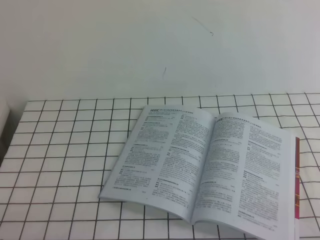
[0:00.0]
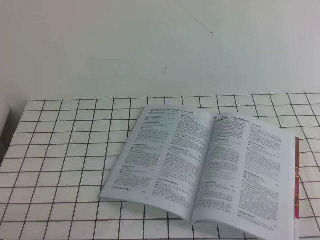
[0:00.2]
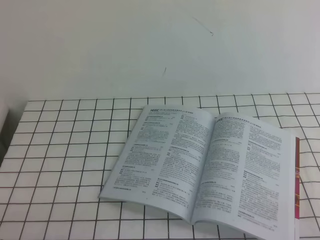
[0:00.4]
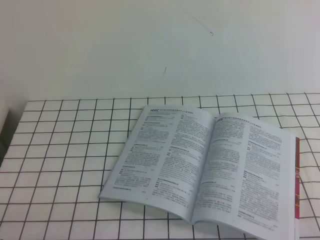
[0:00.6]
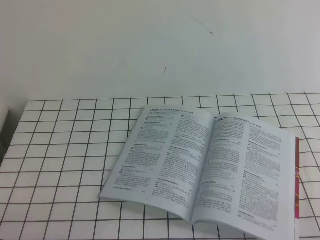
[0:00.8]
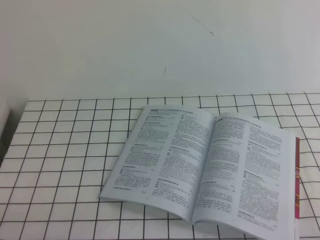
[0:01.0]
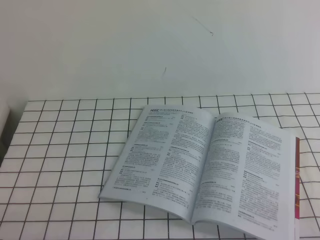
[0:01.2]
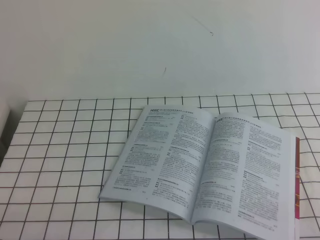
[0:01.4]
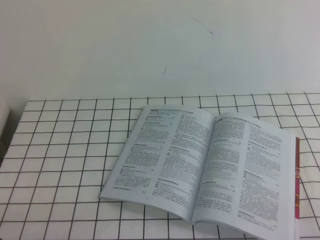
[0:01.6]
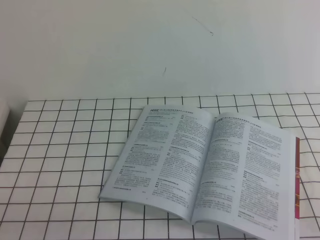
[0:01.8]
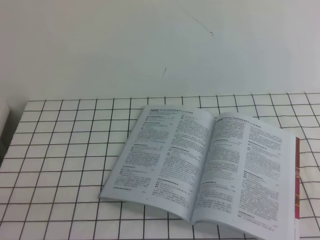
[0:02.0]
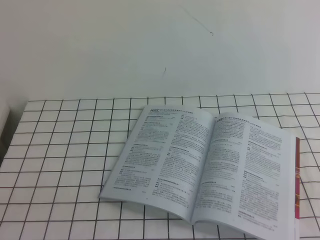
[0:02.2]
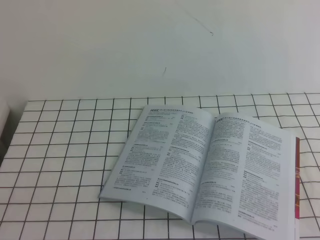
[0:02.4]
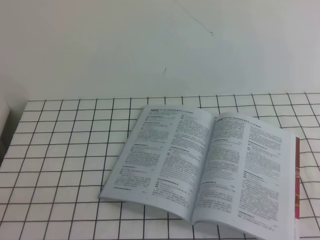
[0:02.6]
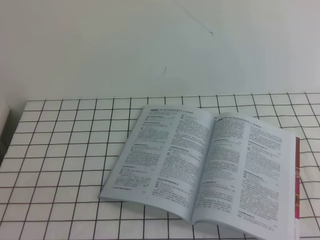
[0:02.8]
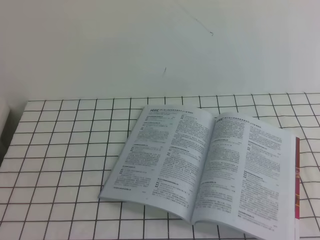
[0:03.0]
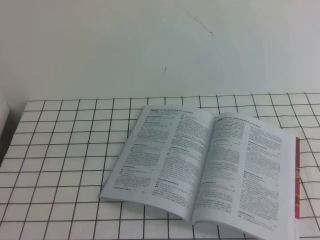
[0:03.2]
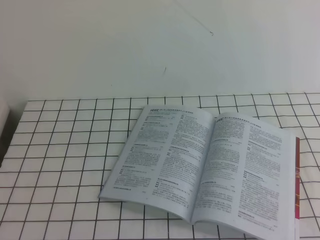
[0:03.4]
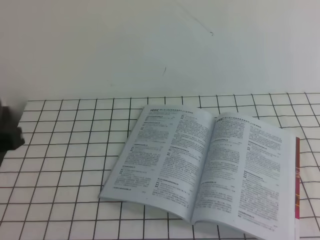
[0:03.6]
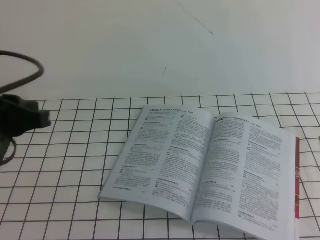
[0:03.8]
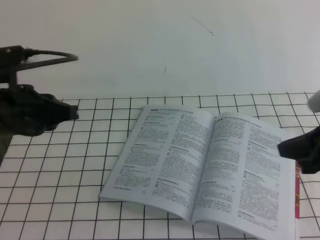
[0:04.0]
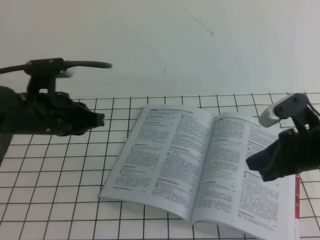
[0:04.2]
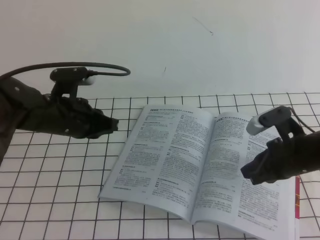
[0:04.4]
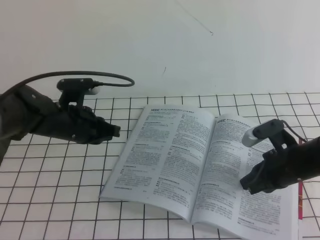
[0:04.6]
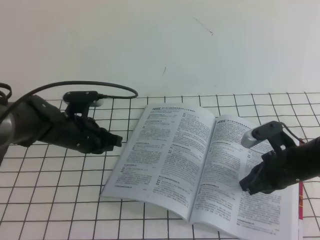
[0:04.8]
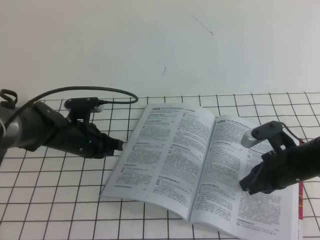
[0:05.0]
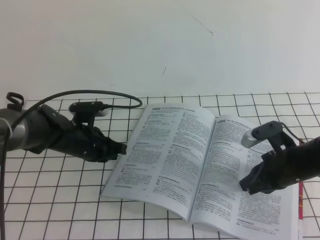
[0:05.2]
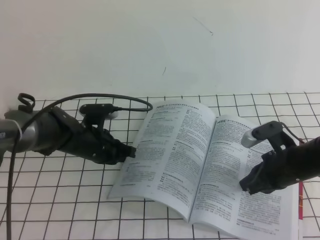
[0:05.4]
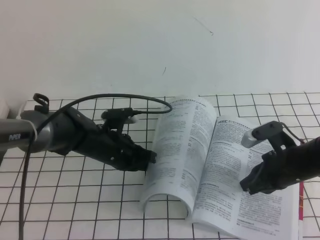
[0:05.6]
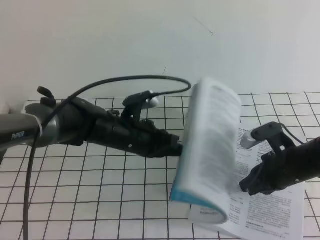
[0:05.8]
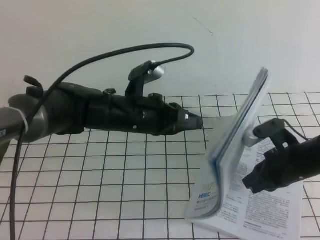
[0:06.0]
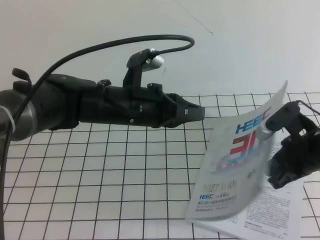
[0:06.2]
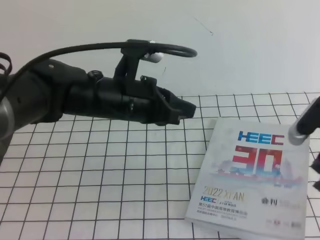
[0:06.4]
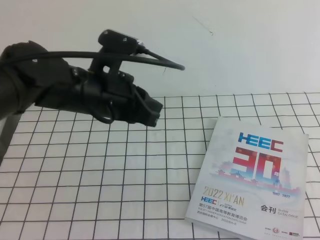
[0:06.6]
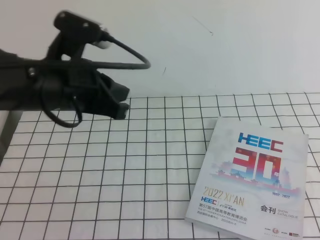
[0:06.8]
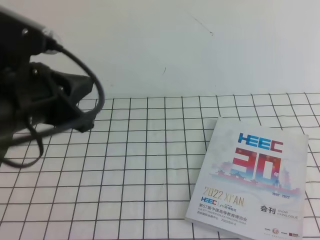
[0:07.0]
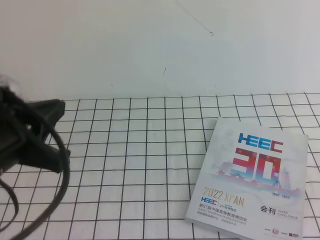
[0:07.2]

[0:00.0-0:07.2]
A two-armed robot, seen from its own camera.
Task of the whole recording: on the white tablecloth, hold the book with one hand and close it with the other.
Step, 0:00.0 to 0:03.8: Close the book.
0:00.0 to 0:01.4: The two grippers keep their place.
0:02.8 to 0:04.4: The right gripper is displaced forward, to the left and downward by about 30 cm. The left gripper travels forward by approximately 30 cm.
0:04.4 to 0:05.8: The right gripper changes place by approximately 5 cm. The left gripper shifts some 10 cm to the right and downward.
0:05.8 to 0:07.2: The left gripper is displaced upward, backward and to the left by about 25 cm. The right gripper moves backward, upward and to the right, some 35 cm.

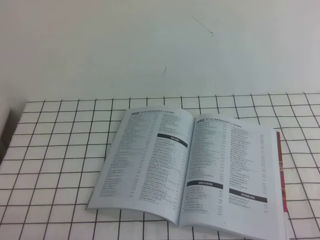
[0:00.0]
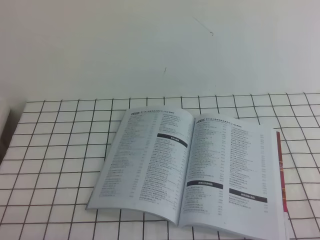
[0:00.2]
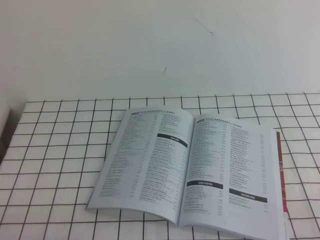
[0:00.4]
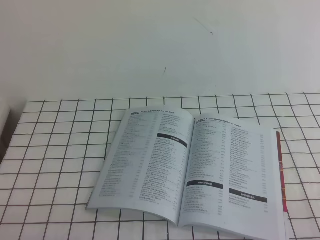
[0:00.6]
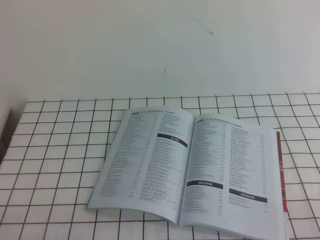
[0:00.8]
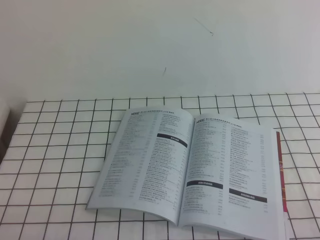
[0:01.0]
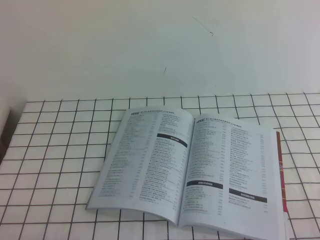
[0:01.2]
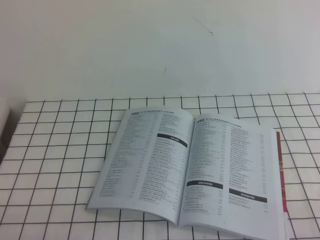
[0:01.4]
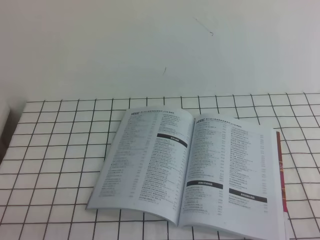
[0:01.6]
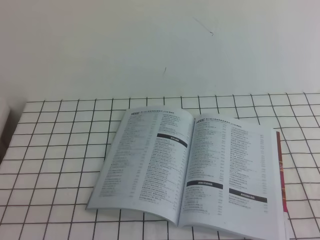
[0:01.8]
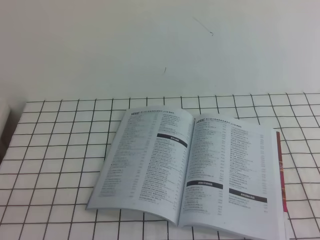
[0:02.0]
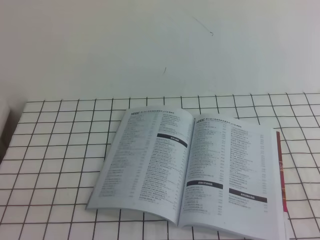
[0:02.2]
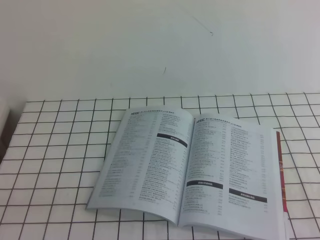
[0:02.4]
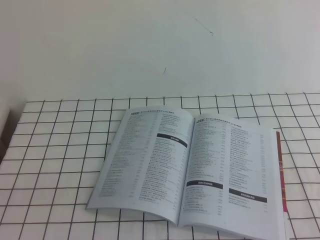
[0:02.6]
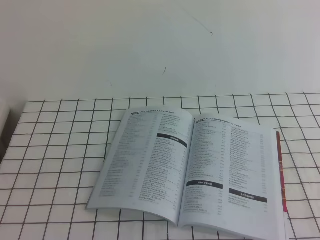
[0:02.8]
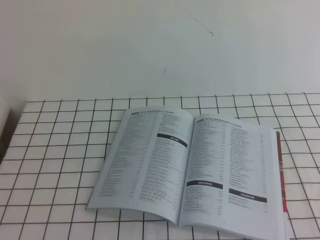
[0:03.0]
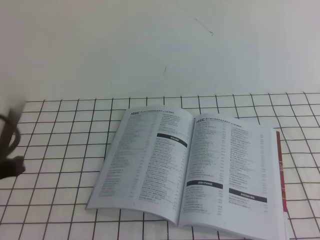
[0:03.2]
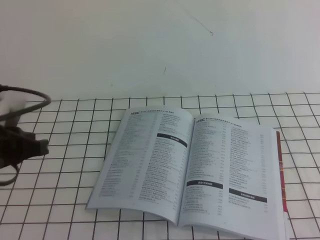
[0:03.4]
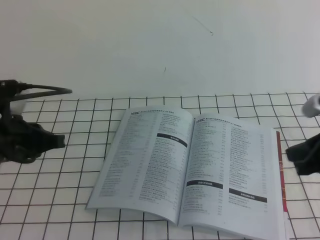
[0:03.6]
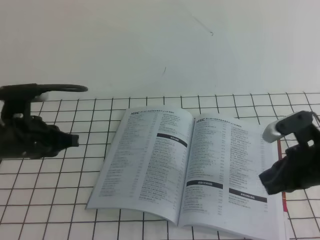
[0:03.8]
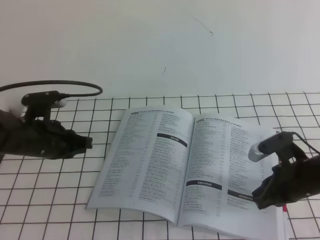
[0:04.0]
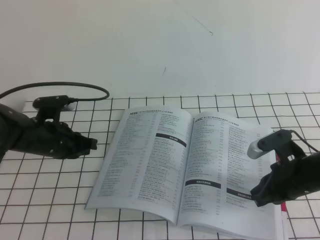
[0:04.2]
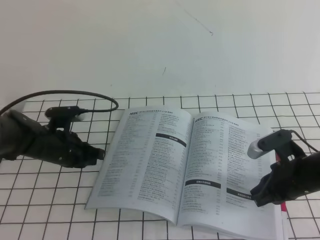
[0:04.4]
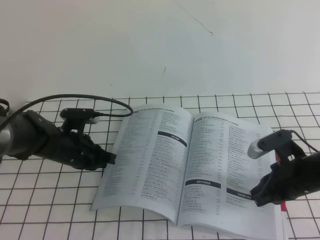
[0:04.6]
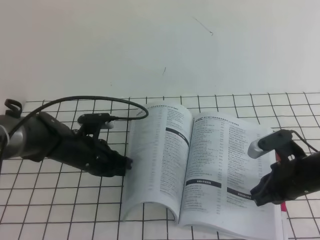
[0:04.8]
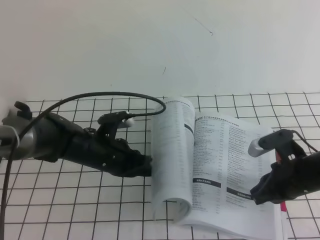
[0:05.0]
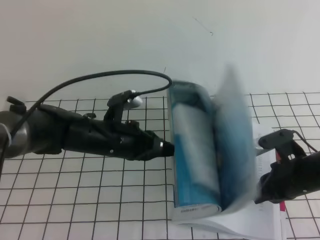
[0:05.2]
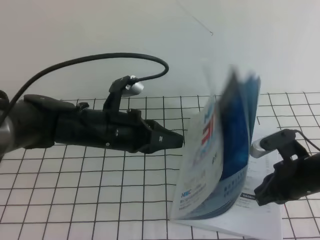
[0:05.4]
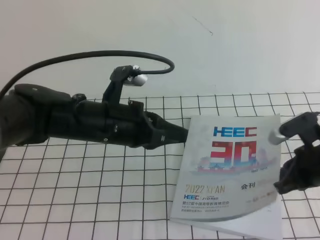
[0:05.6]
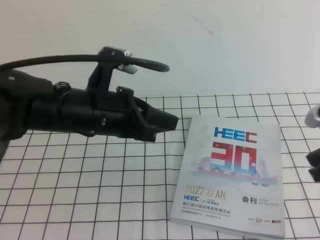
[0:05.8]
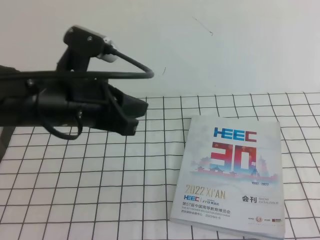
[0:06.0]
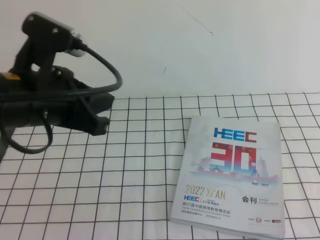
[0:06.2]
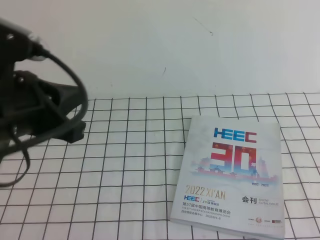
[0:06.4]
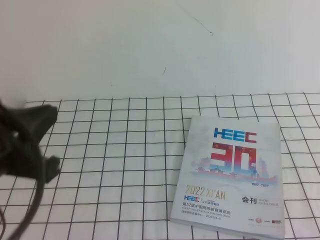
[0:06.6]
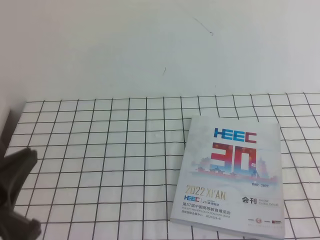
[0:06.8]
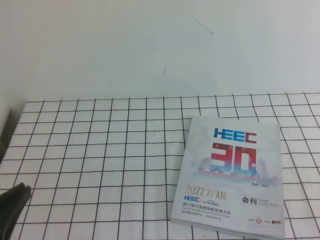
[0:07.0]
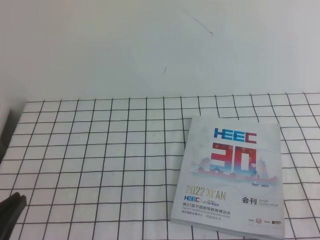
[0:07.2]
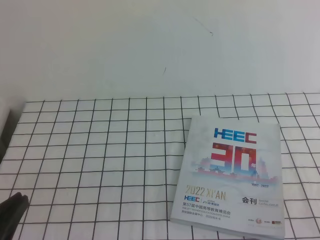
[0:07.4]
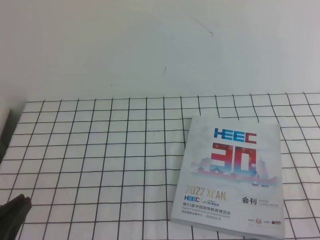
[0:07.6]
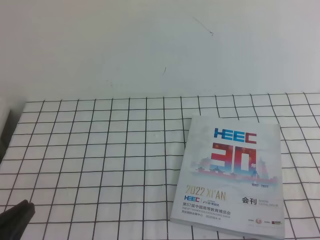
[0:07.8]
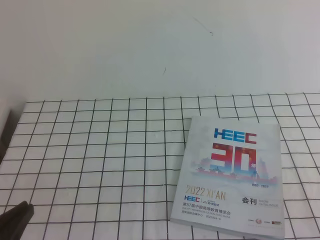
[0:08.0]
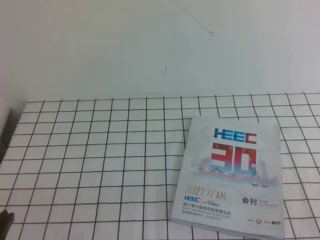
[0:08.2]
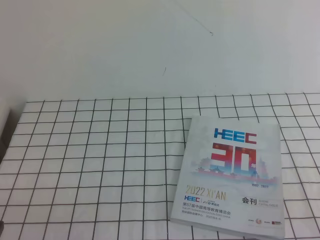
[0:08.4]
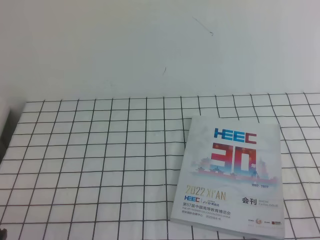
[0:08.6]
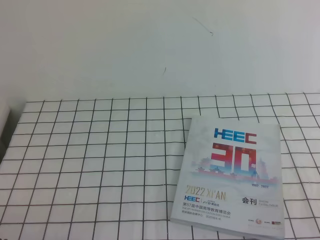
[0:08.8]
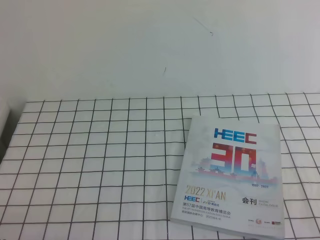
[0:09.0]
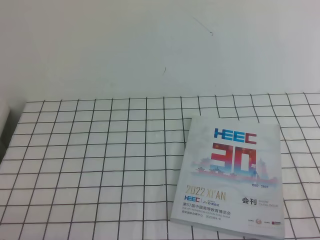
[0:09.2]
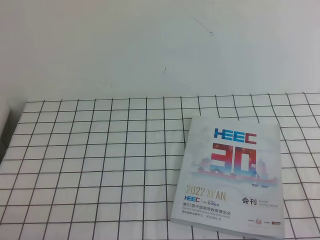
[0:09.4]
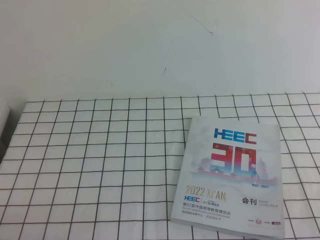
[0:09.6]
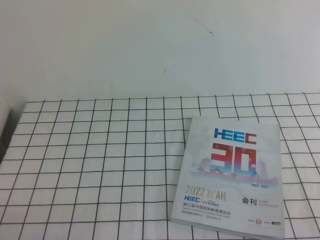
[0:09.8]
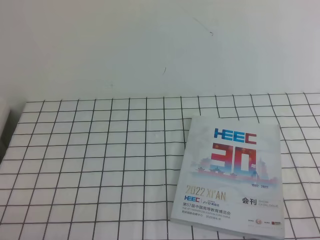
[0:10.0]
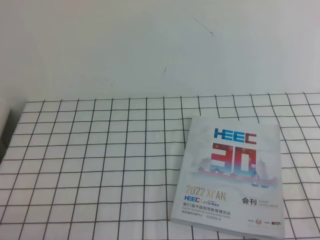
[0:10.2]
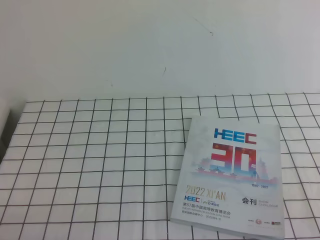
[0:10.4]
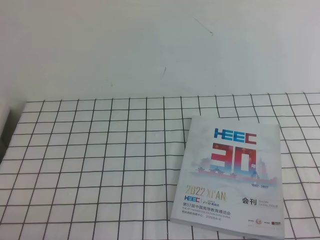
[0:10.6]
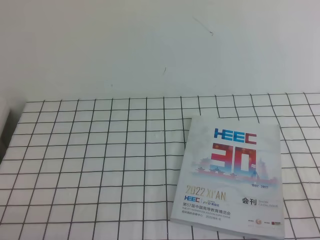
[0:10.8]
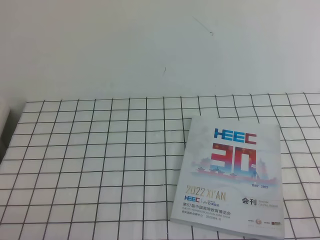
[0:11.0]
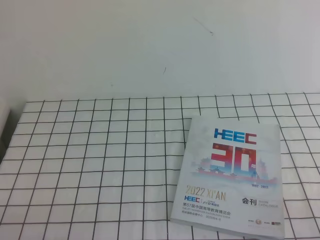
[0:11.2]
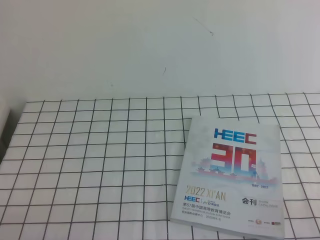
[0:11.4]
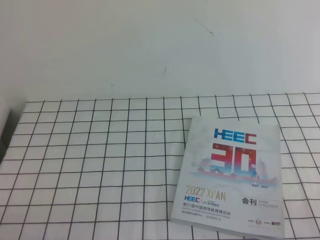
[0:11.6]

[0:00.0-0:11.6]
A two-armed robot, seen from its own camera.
Task of the whole recording: on the white tablecloth, hold the book with one hand and close it with the other.
Step, 0:00.0 to 0:11.6: Close the open book.
0:00.0 to 0:01.4: Neither gripper changes place.
0:02.8 to 0:04.4: The right gripper goes some 30 cm forward, downward and to the left, while the left gripper goes approximately 35 cm forward and downward.
0:04.4 to 0:05.8: The left gripper moves upward, to the right and backward, some 20 cm. The right gripper moves upward, about 10 cm.
0:05.8 to 0:07.2: The left gripper shifts some 25 cm backward and to the left. Meanwhile the right gripper goes approximately 20 cm backward.
0:07.2 to 0:08.8: The left gripper goes about 10 cm downward.
